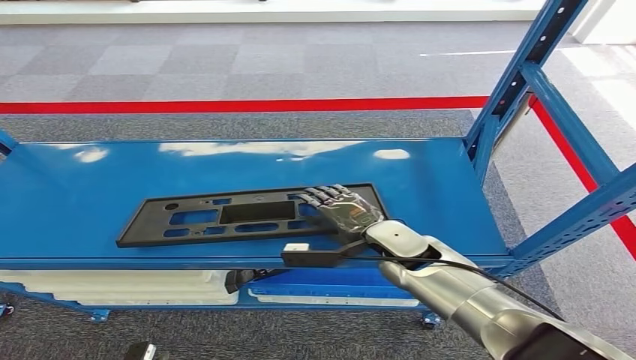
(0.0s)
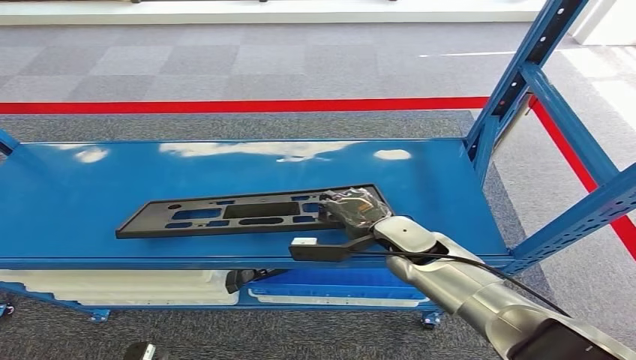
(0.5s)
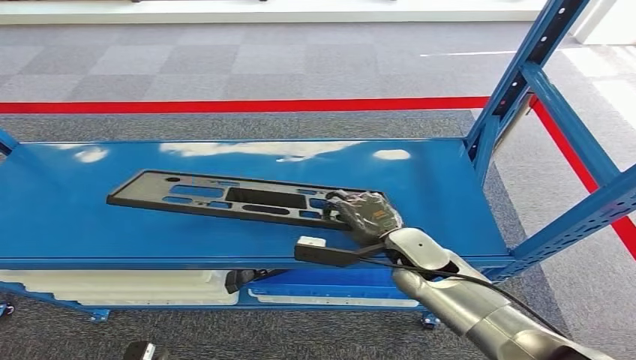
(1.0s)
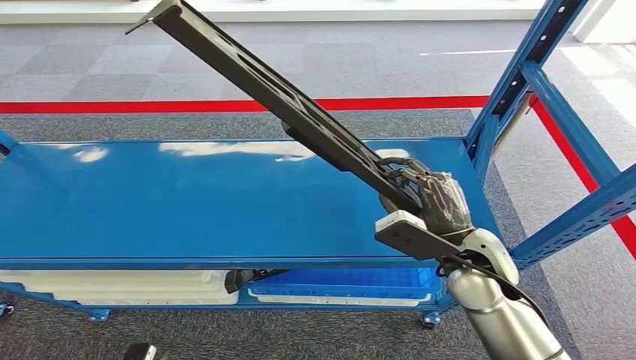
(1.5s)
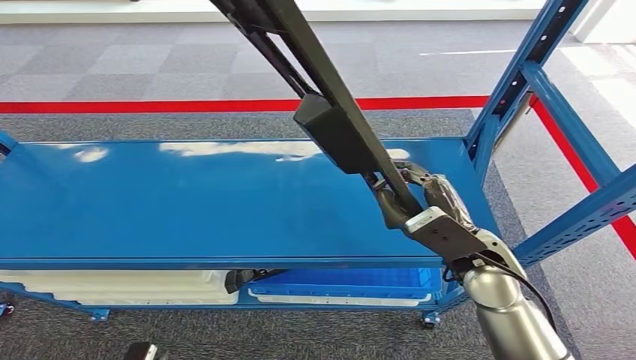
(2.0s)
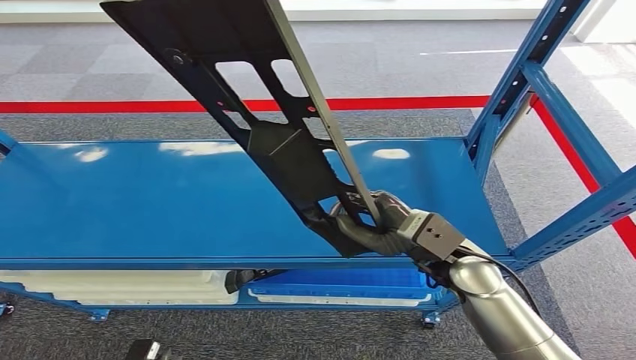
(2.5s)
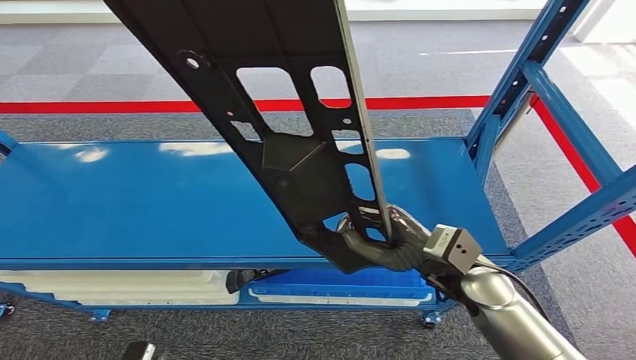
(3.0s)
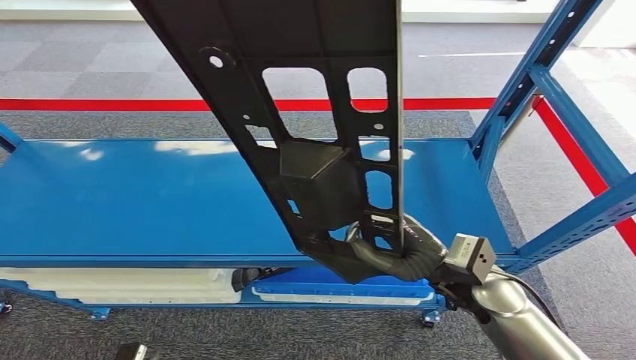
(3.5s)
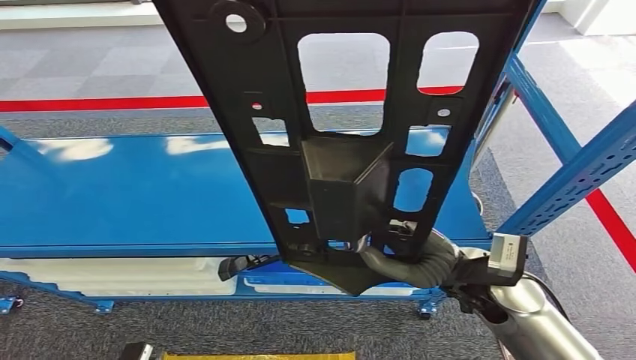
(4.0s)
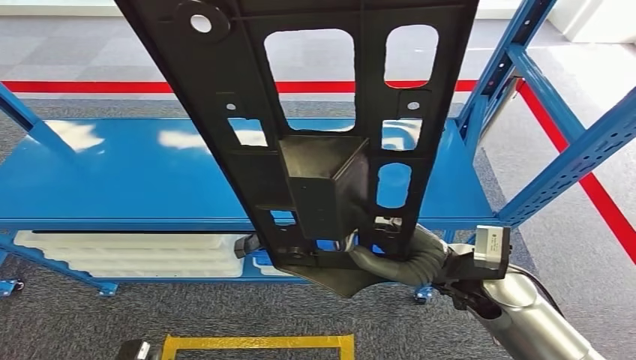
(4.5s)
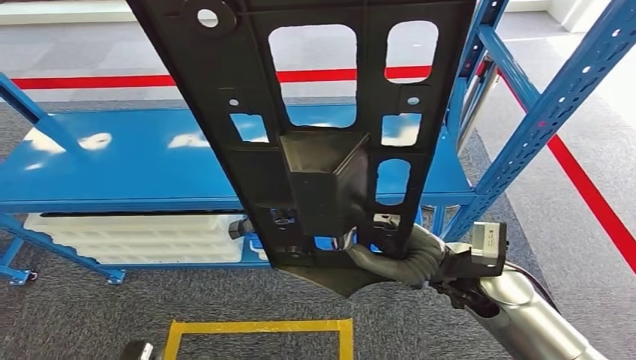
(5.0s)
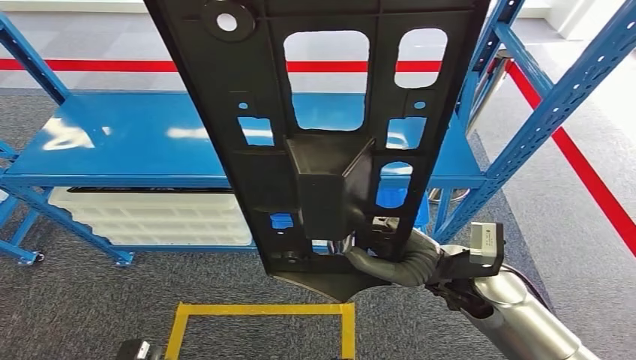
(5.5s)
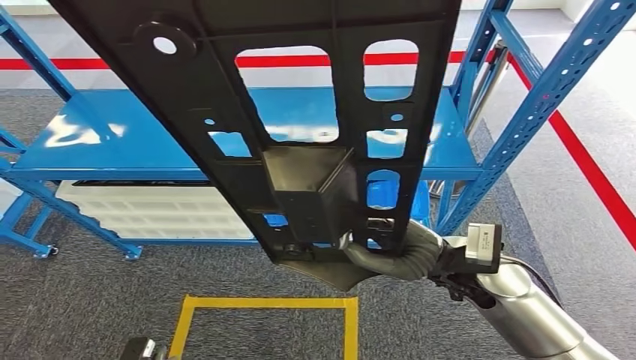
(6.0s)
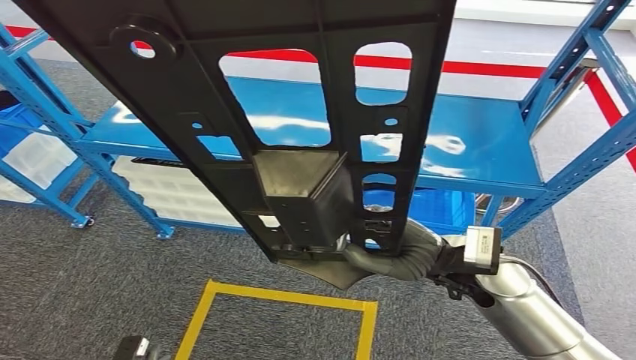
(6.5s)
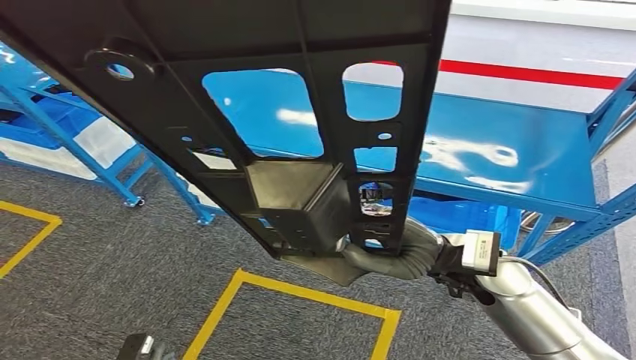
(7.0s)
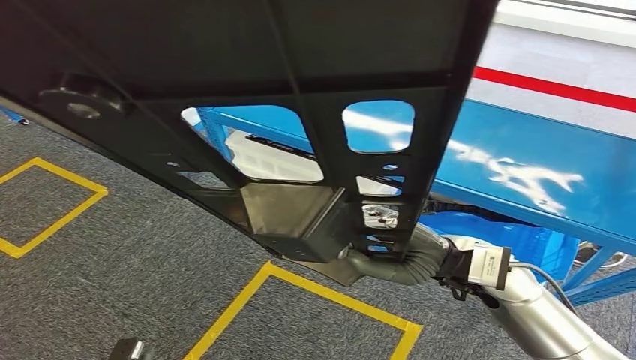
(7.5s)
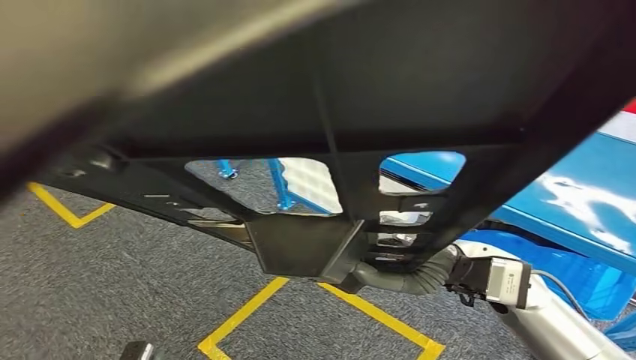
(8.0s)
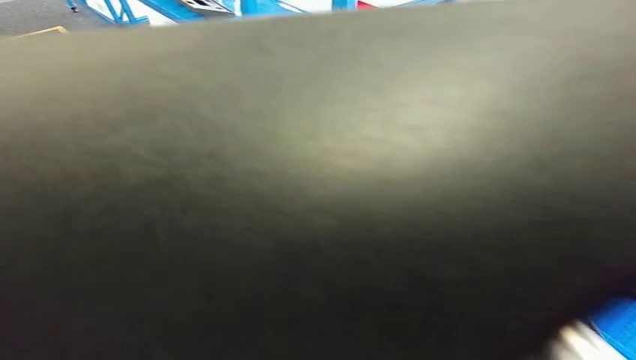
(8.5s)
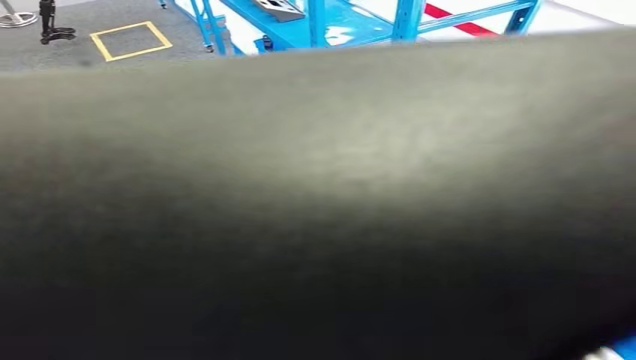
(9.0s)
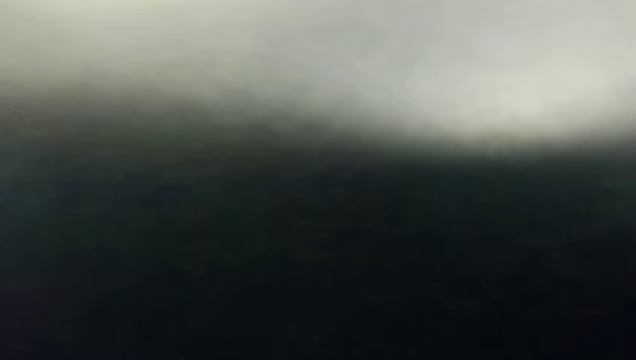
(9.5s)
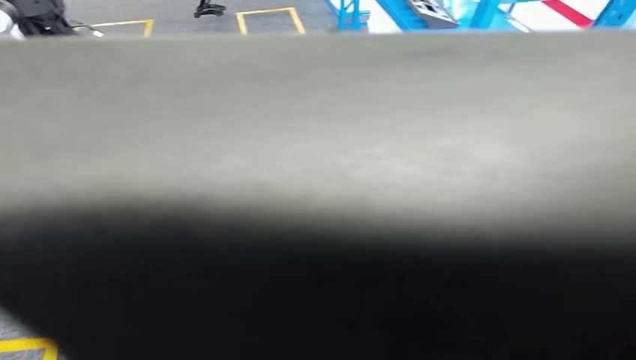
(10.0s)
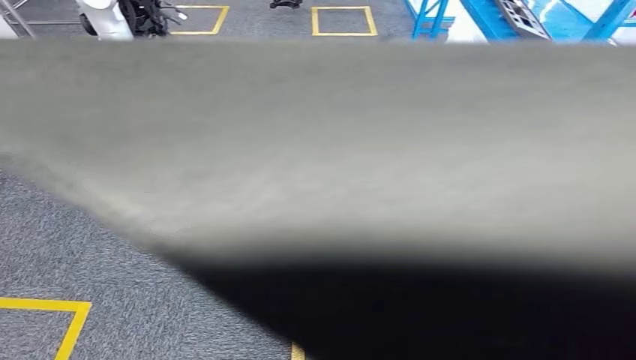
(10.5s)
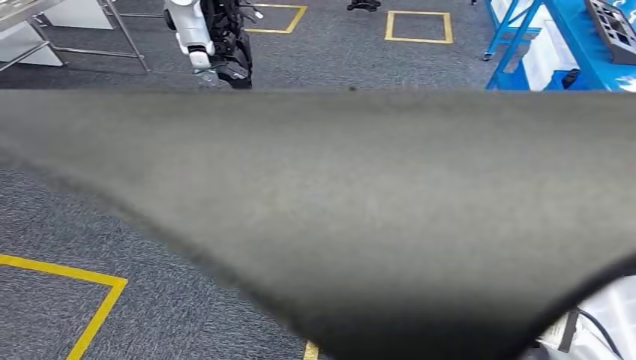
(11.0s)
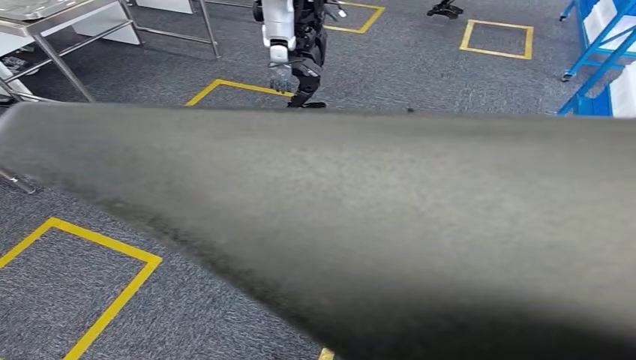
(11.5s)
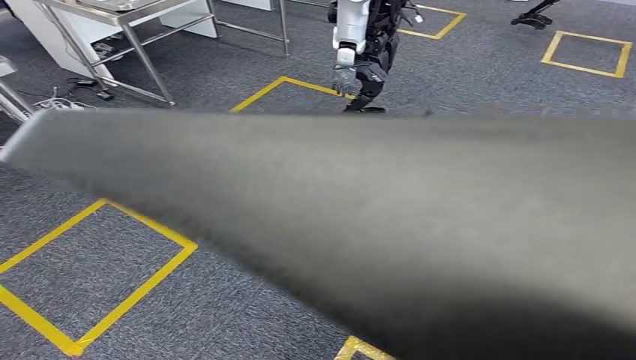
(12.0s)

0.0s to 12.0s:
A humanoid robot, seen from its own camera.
0.0s to 2.0s: The right hand shifts approximately 15 cm to the right, upward and backward.

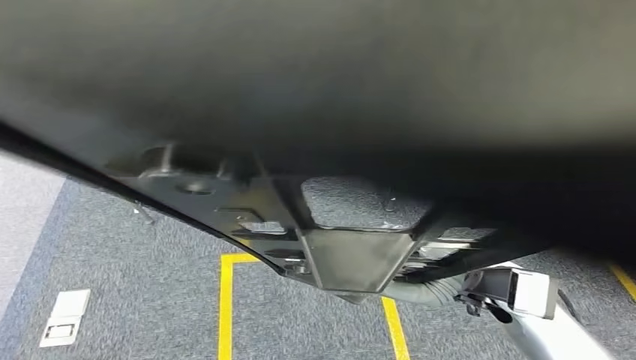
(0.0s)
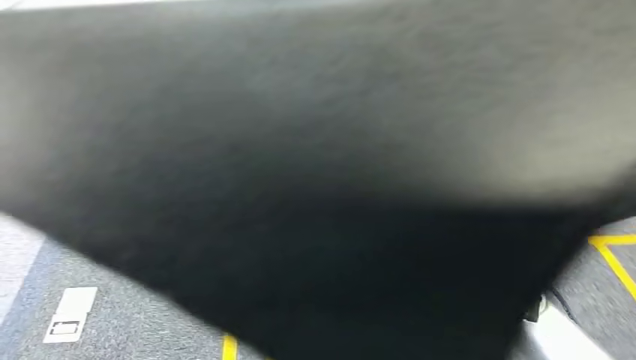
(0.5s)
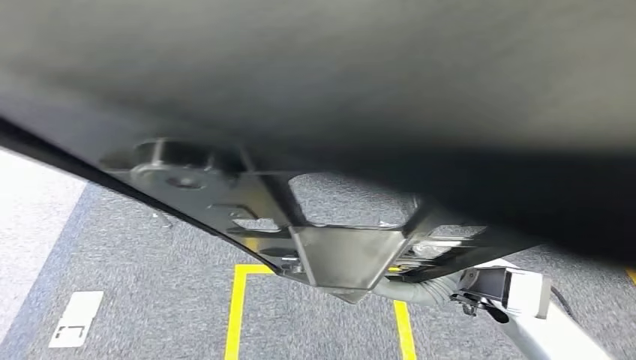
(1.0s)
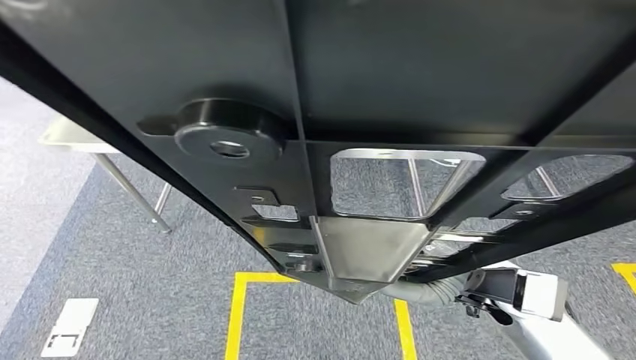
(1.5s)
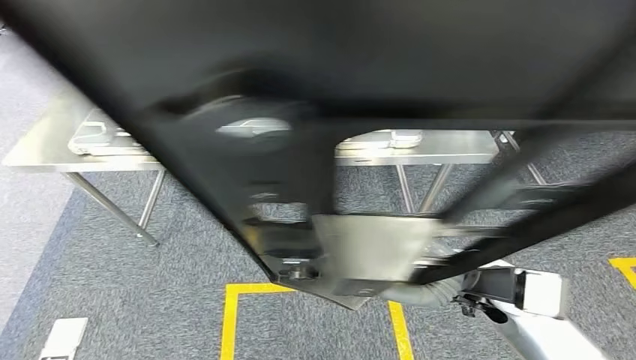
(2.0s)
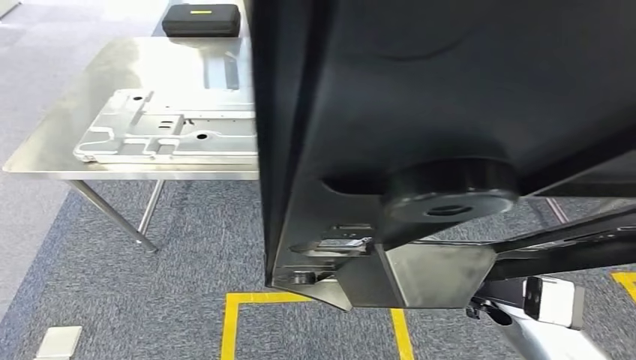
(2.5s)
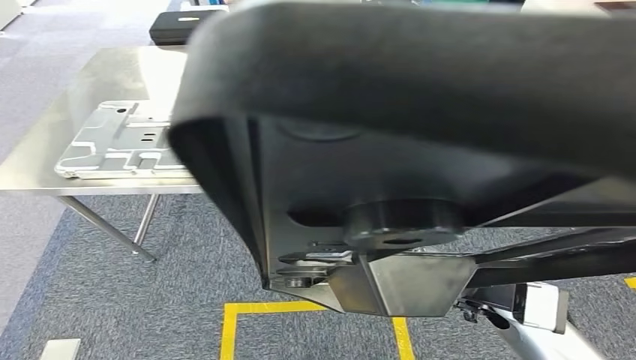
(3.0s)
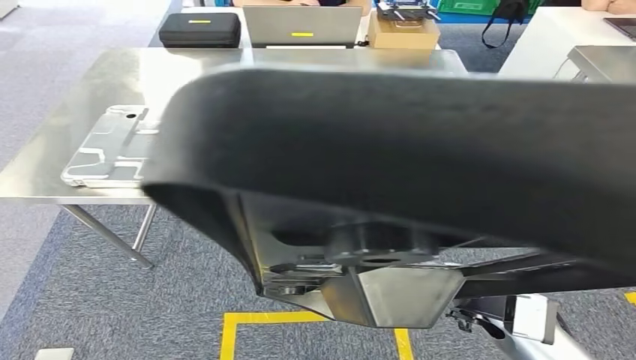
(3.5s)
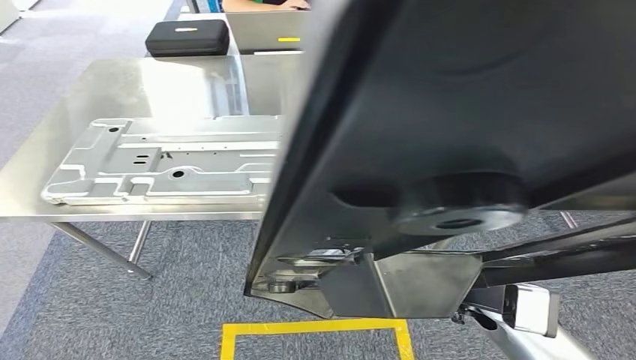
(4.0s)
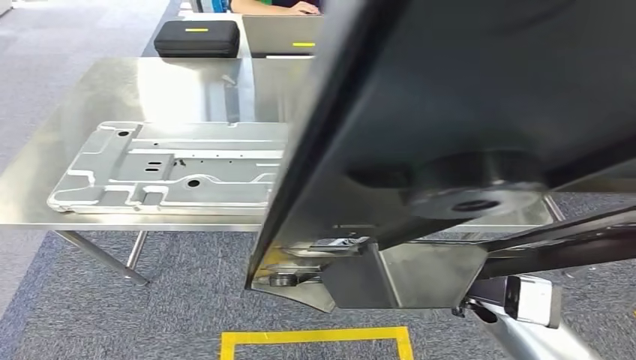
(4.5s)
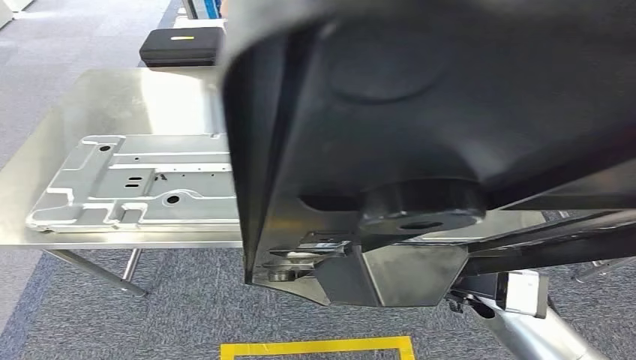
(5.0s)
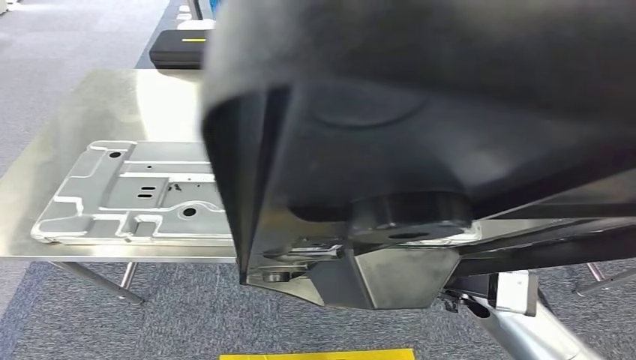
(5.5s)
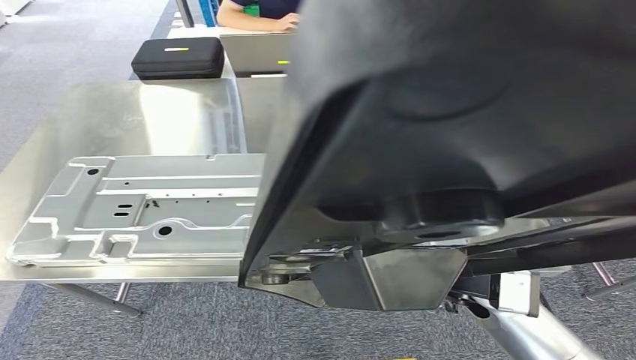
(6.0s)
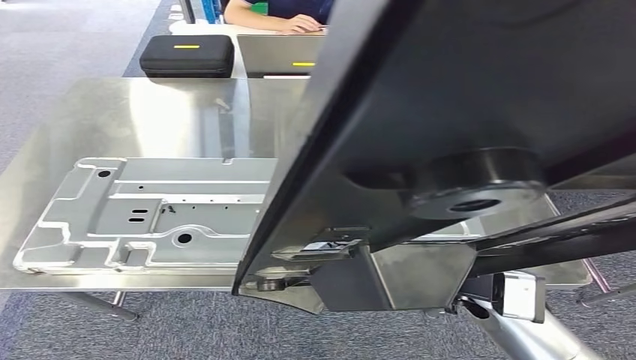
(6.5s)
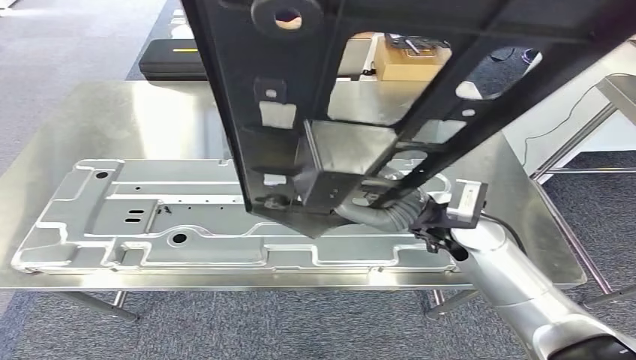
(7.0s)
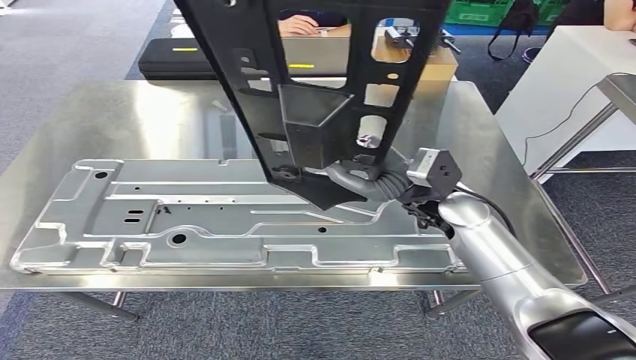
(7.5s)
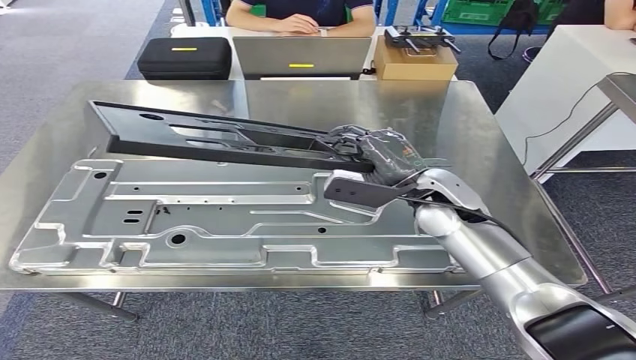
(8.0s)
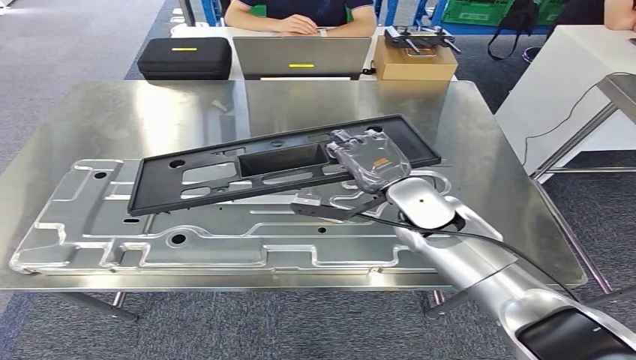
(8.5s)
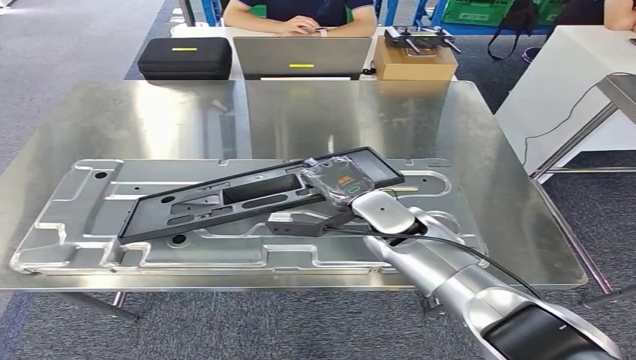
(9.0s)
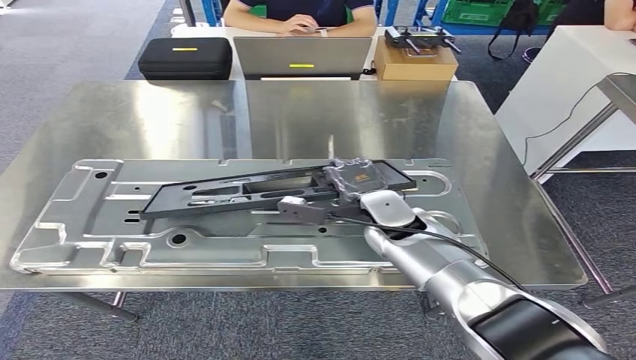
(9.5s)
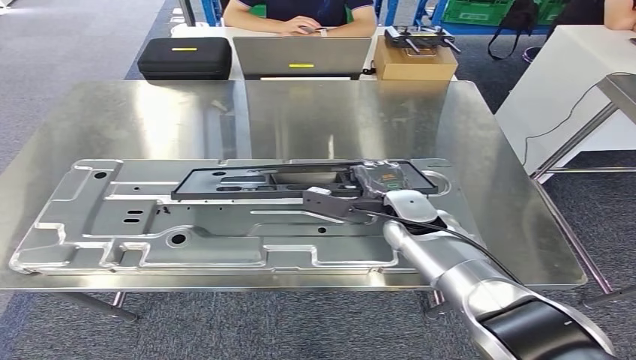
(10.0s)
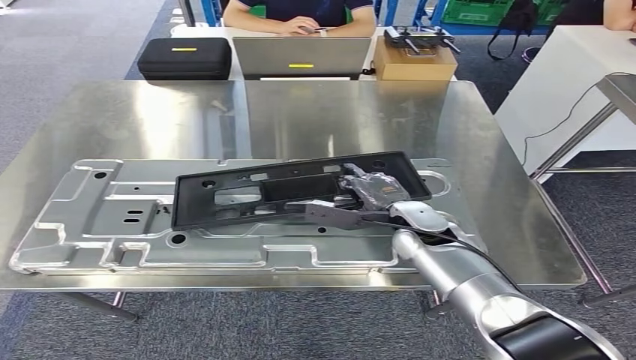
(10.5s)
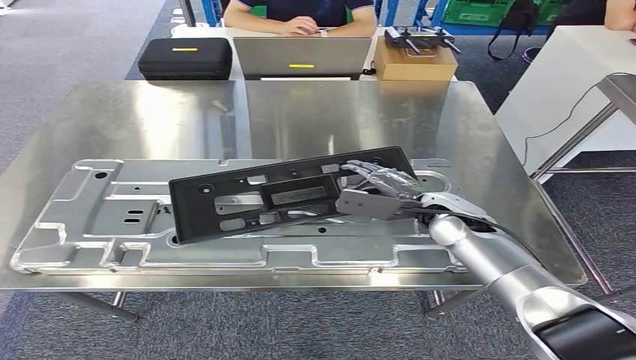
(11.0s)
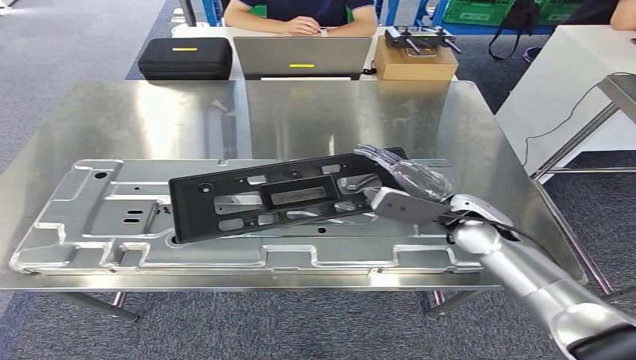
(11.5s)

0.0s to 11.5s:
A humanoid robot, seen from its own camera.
Step, 0.0s to 5.5s: Move the small component to the workbench.
9.5s to 11.5s: The right hand moves to the right, some 15 cm.
